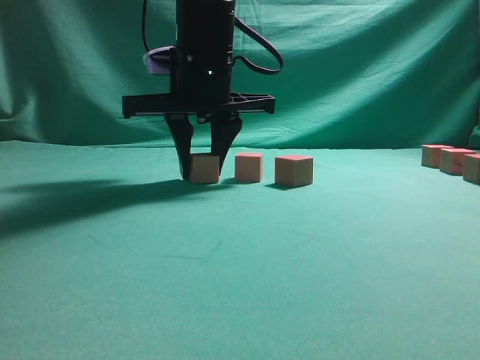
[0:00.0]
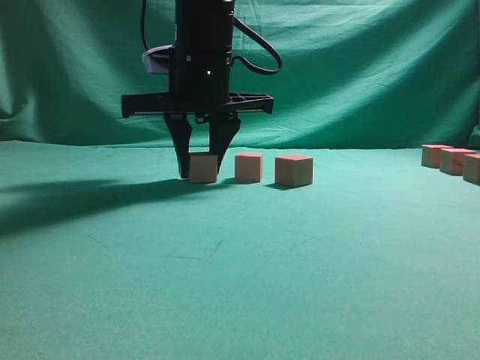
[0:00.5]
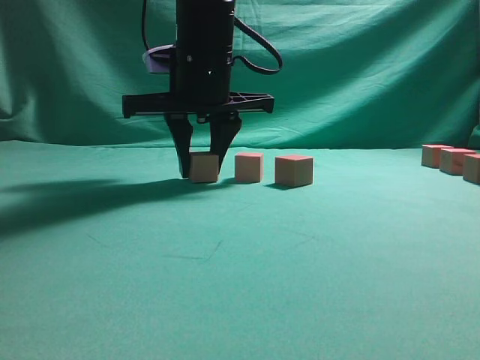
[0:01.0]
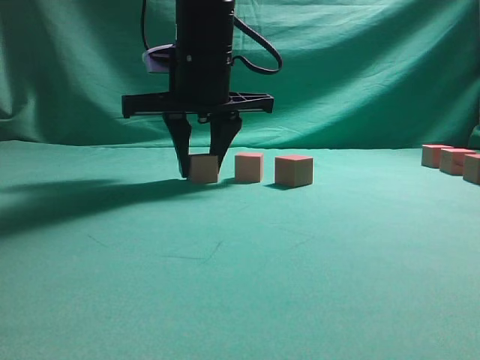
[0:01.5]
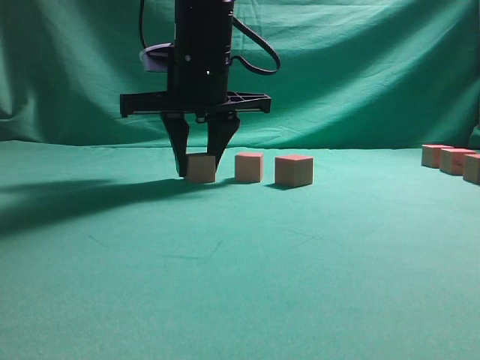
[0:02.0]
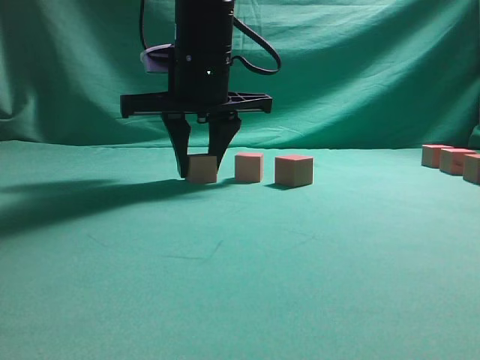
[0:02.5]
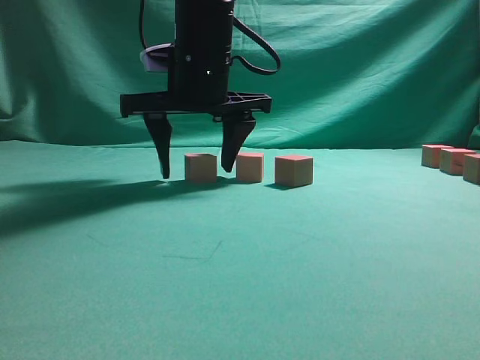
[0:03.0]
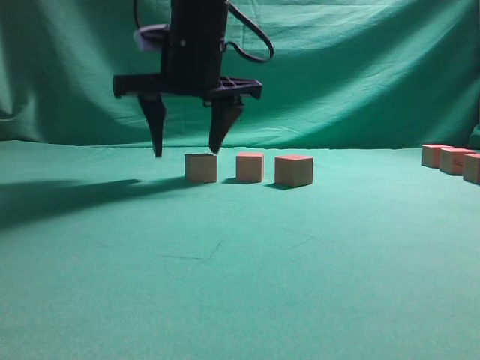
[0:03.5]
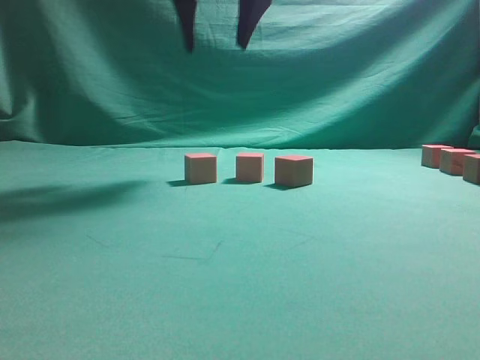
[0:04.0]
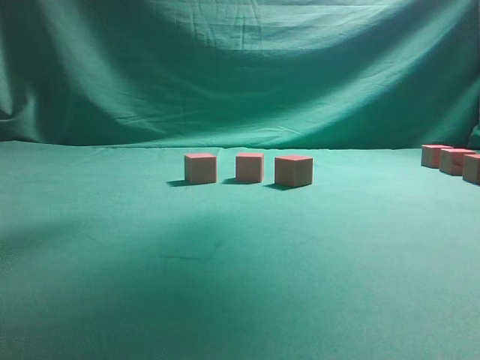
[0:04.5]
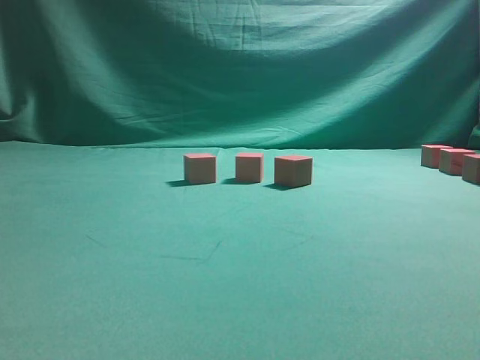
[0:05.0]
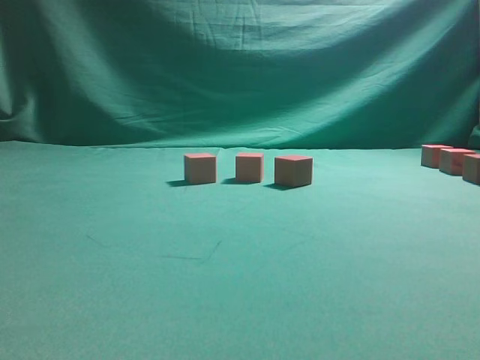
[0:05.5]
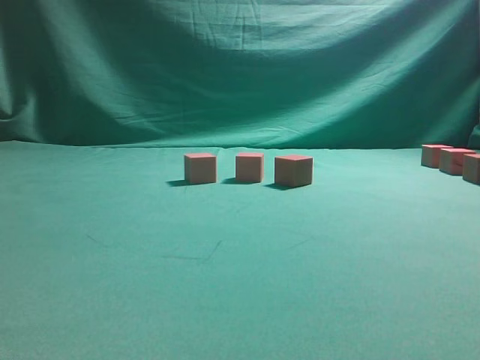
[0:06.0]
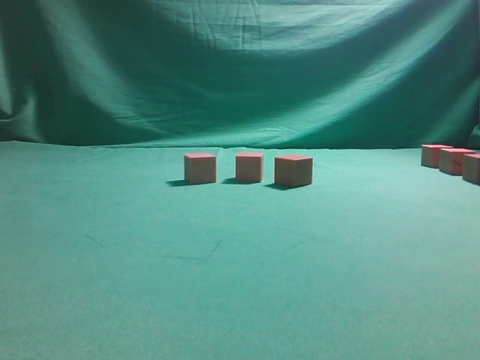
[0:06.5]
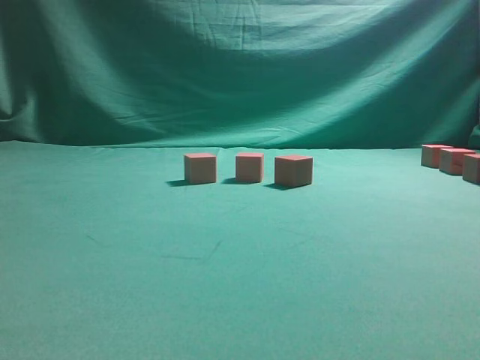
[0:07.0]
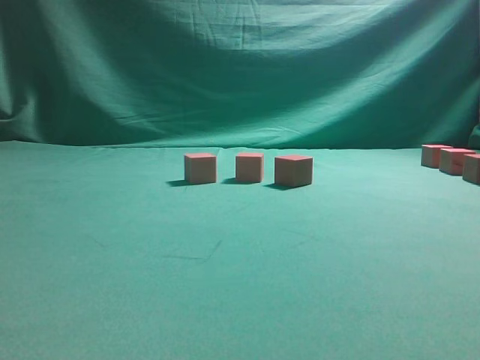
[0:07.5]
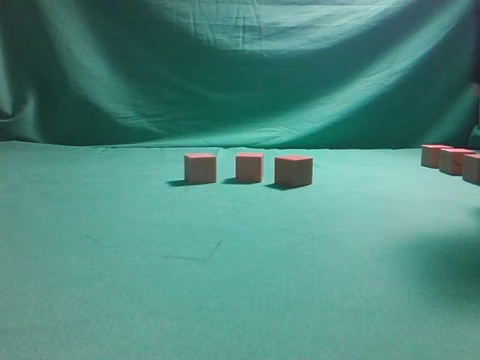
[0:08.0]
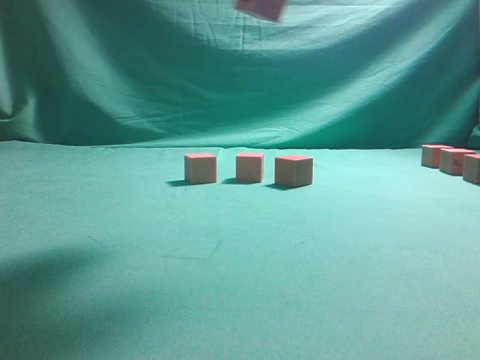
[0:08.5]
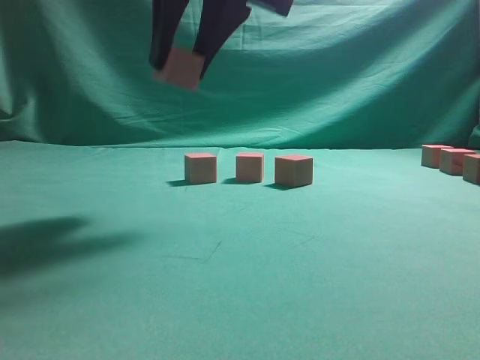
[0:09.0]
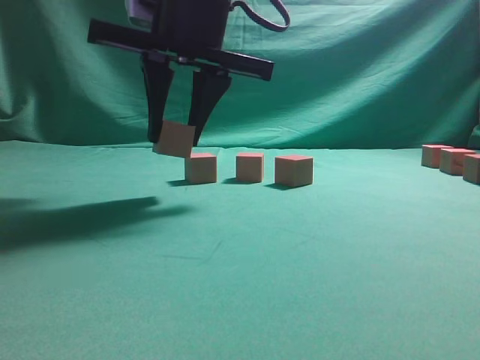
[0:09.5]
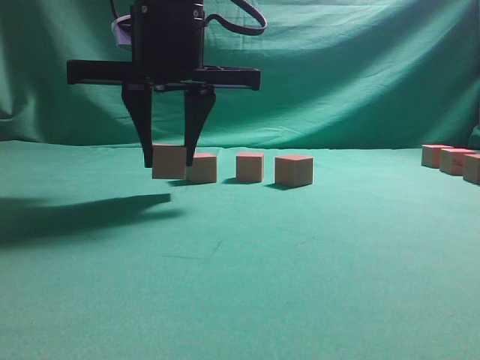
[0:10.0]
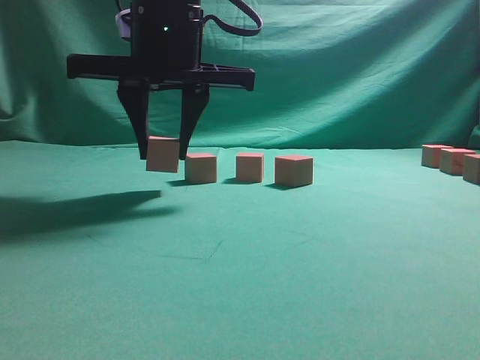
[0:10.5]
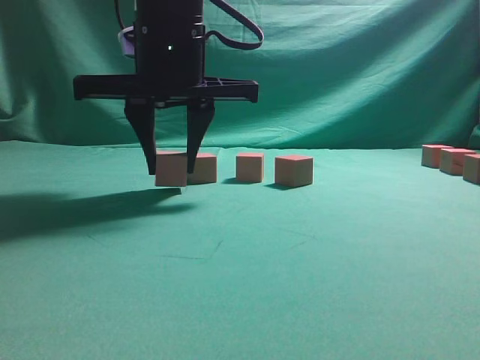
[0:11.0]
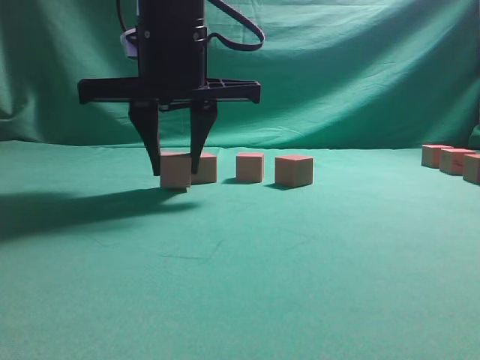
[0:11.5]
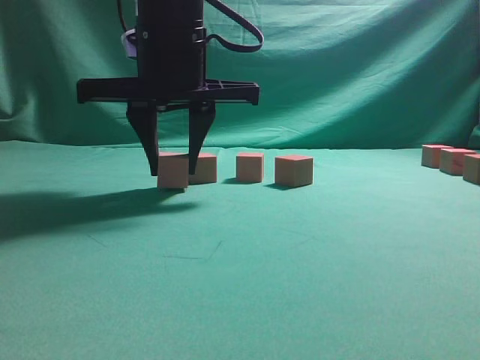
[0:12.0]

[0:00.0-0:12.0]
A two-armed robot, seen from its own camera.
Task of the whole recording: pick up the multiple cubes in two columns one by one and place them in another position on the table.
Step, 0:00.0 to 0:03.5: Place the block at the correct position to assemble the letter S.
Step, 0:04.0 to 0:07.5: Pick up the block on the table.
0:00.0 to 0:02.0: Both grippers stay about where they are.
0:02.0 to 0:04.0: The right gripper goes some 15 cm upward, and opens.
0:04.0 to 0:06.0: The right gripper travels to the right by roughly 40 cm.
0:06.0 to 0:08.0: The right gripper moves to the left and upward, roughly 10 cm, and closes up.
0:08.0 to 0:10.0: The right gripper shifts approximately 35 cm to the left.
0:10.0 to 0:12.0: There are only small adjustments of the grippers.

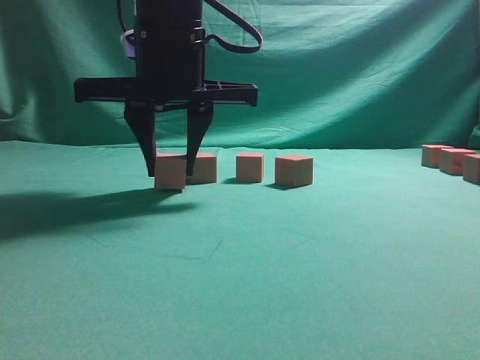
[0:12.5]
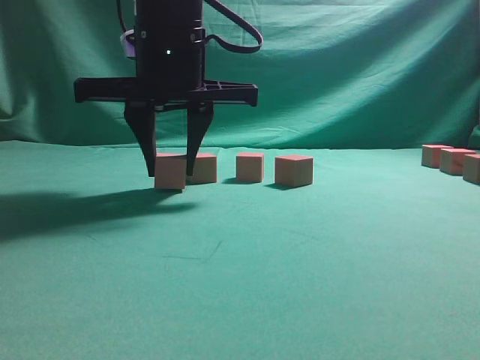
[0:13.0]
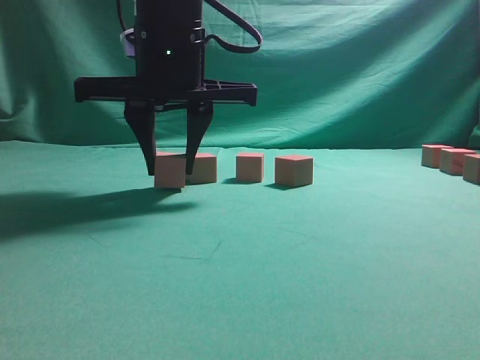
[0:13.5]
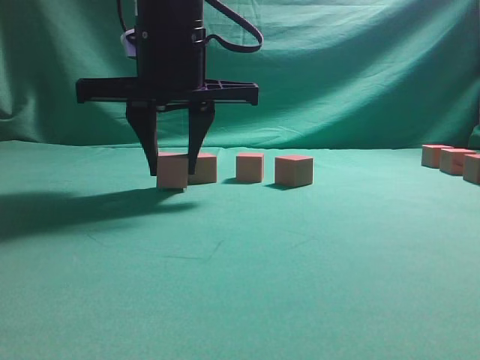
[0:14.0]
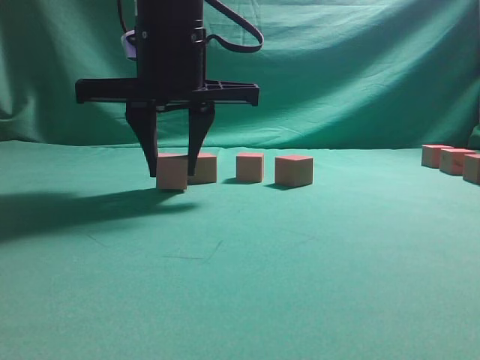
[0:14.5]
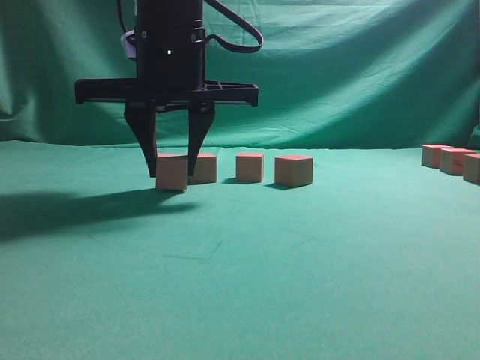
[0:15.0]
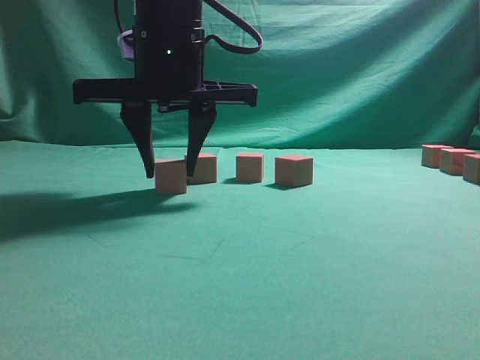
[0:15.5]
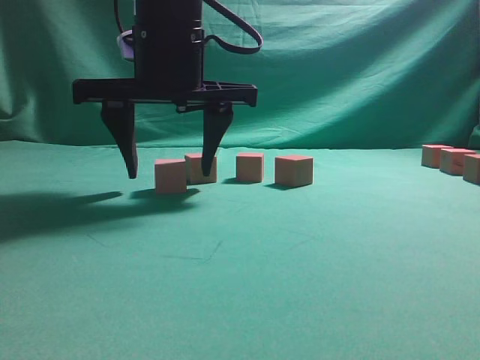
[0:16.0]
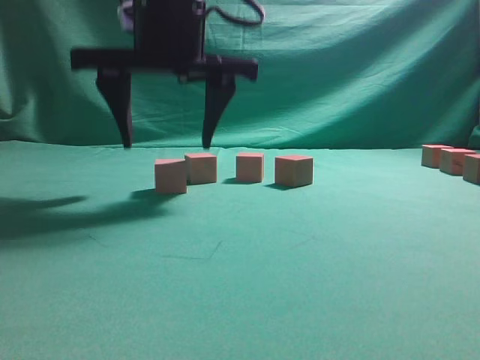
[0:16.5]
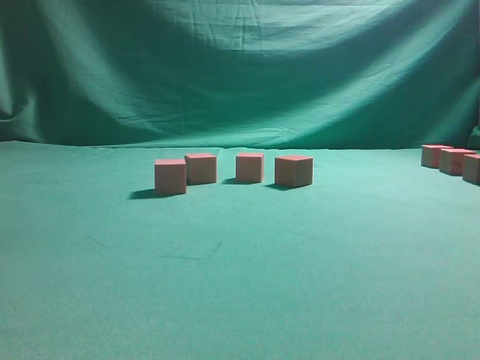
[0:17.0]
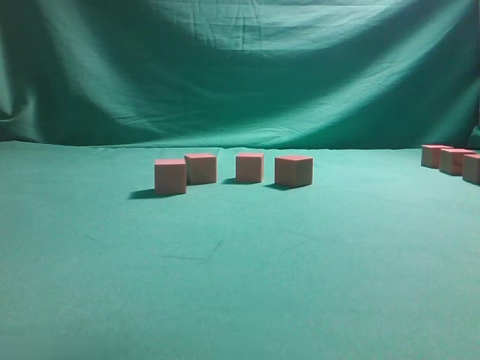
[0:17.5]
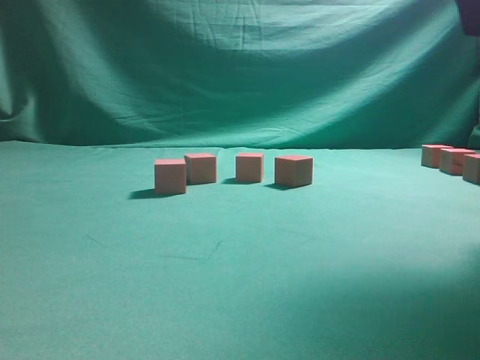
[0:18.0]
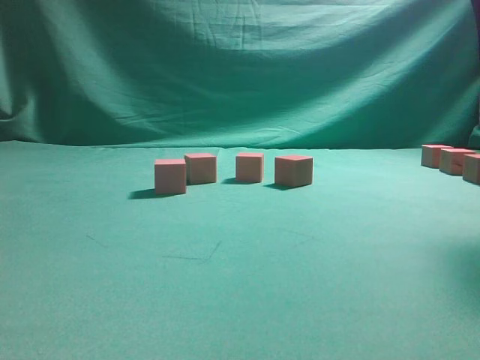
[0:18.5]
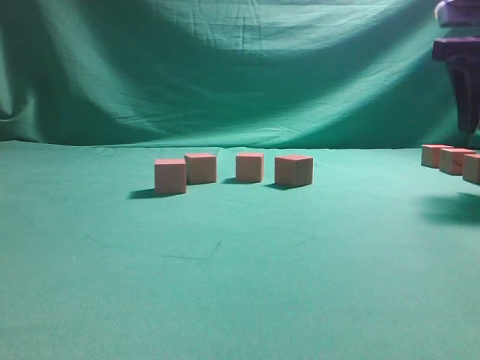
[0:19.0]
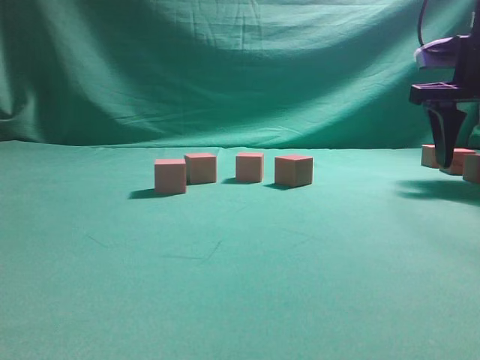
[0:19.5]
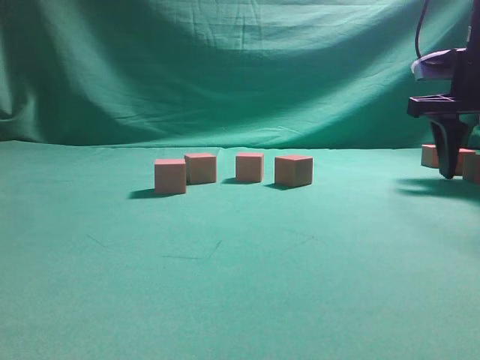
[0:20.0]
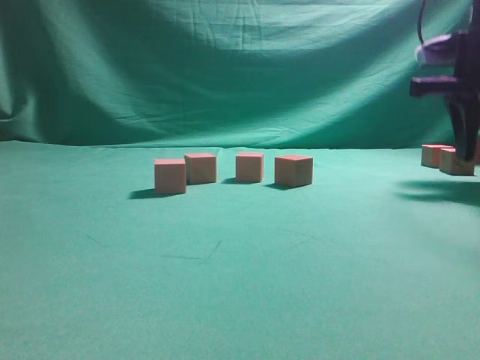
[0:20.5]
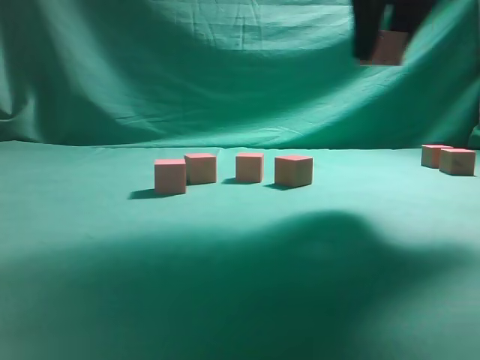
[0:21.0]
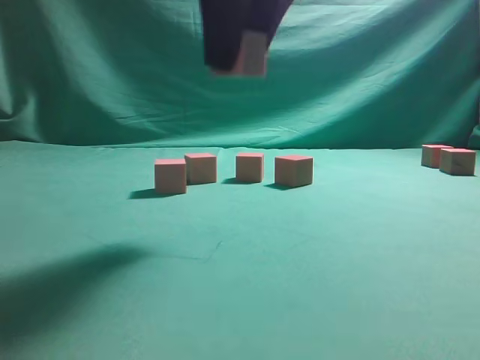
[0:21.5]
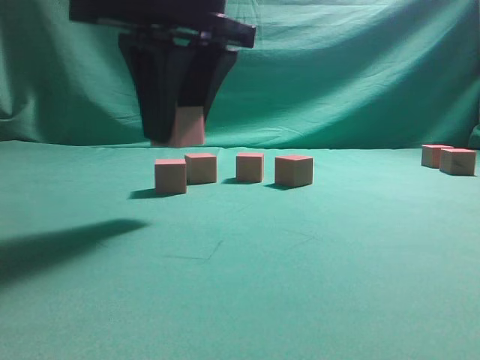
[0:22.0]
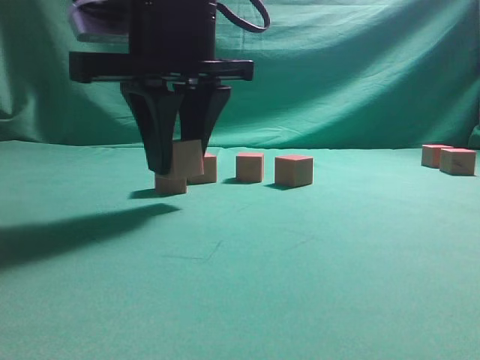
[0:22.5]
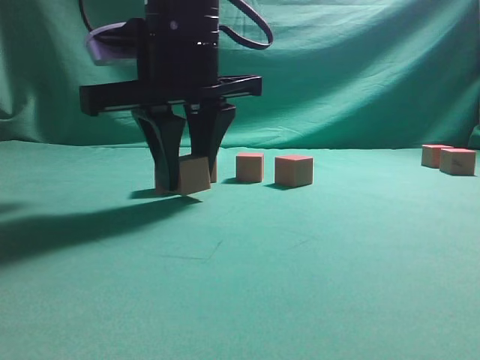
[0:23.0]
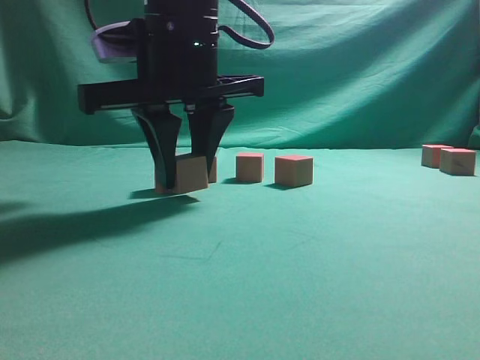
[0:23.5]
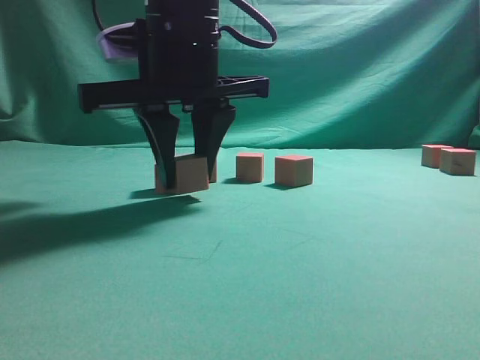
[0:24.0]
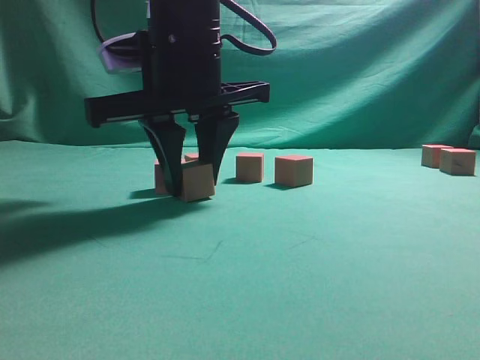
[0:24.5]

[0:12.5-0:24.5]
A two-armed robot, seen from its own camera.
Task of the whole recording: pick up the multiple cubes in two columns one by one and place them in another position on the table.
Step, 0:12.5 to 0:16.5: Place the block at the correct position to assemble the letter S.
Step, 0:17.0 to 0:20.5: Pick up the block on the table.
0:12.5 to 0:14.5: Both grippers stay about where they are.
0:14.5 to 0:16.5: The right gripper opens its fingers.
0:16.5 to 0:18.5: The right gripper moves to the right, some 30 cm.
0:18.5 to 0:20.5: The right gripper goes about 15 cm downward and forward, and closes.
0:20.5 to 0:22.5: The right gripper moves to the left, roughly 30 cm.
0:22.5 to 0:24.5: There are only small adjustments of the grippers.

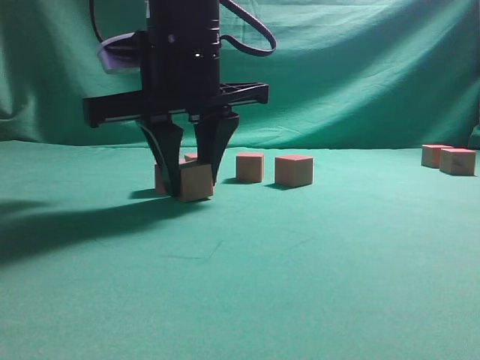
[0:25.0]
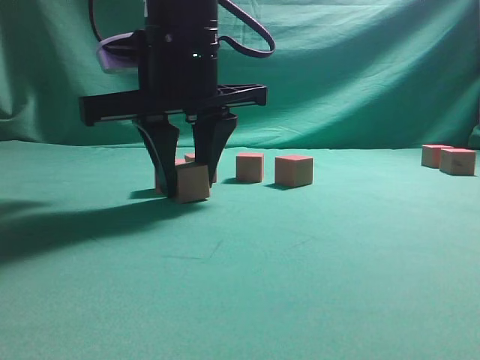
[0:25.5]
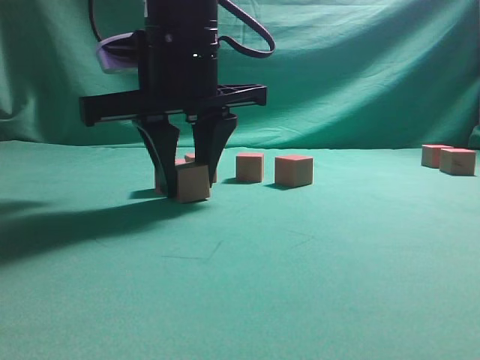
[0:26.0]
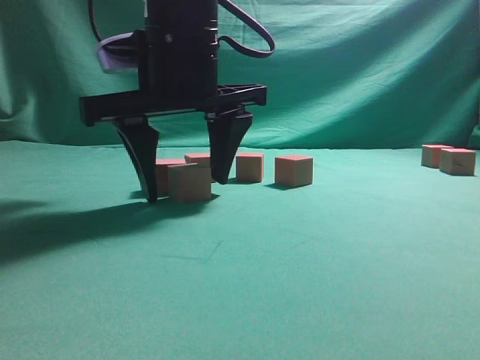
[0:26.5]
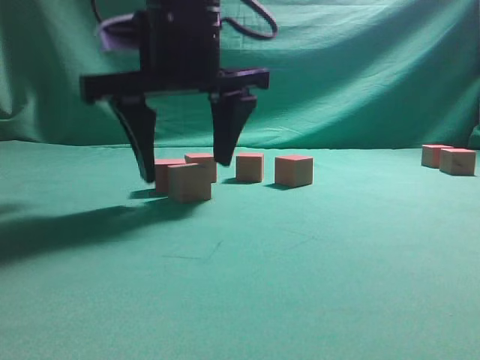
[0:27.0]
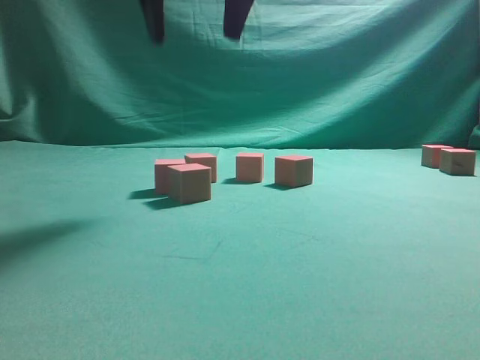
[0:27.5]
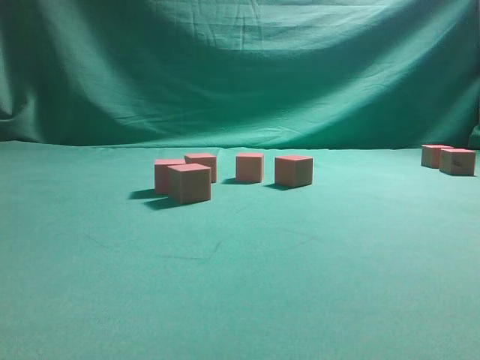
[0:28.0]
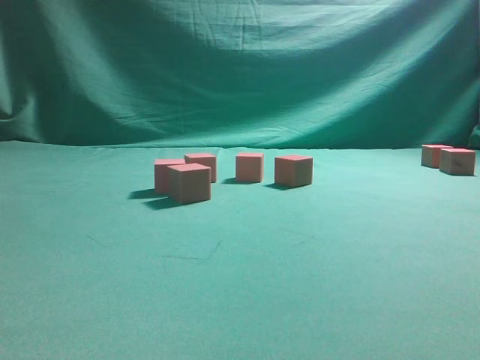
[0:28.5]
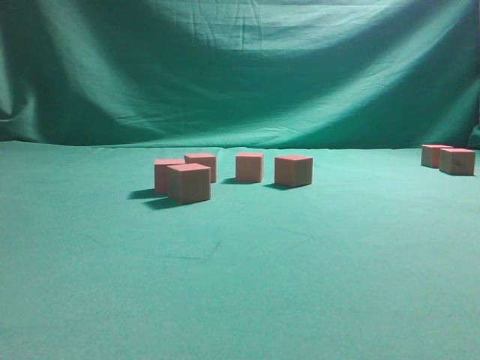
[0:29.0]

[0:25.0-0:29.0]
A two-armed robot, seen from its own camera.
Task of the whole recording: pick up the multiple cubes in two columns one by one and place them in another position on the table.
Step, 0:25.0 to 0:27.0: Place the block at the correct position to assemble the letter S.
0:25.0 to 0:27.0: The right gripper opens up.
0:27.0 to 0:29.0: The right gripper is displaced to the right by about 40 cm.
